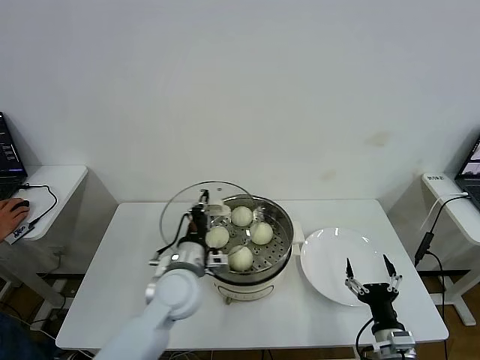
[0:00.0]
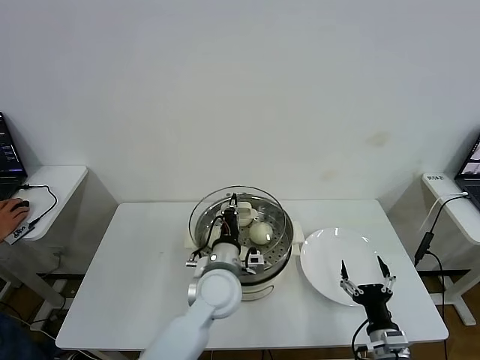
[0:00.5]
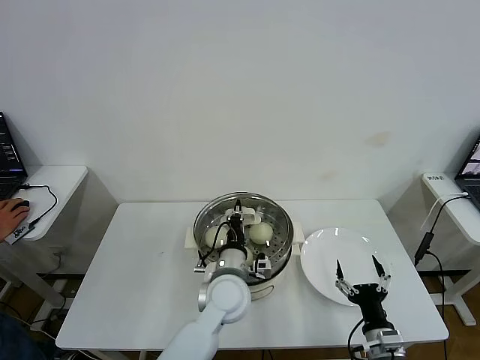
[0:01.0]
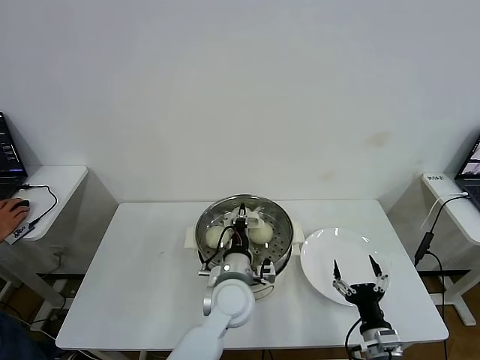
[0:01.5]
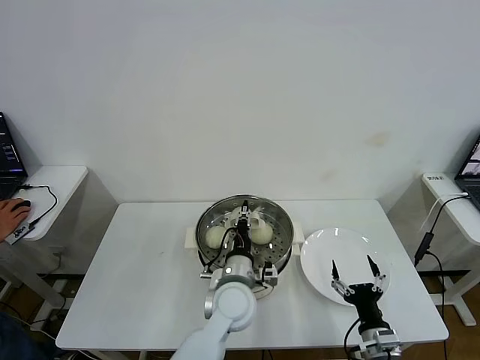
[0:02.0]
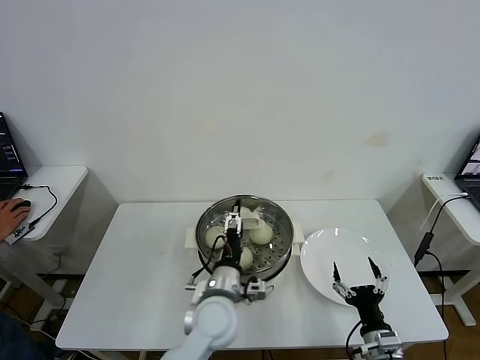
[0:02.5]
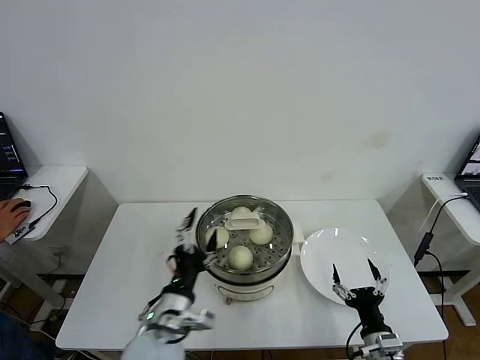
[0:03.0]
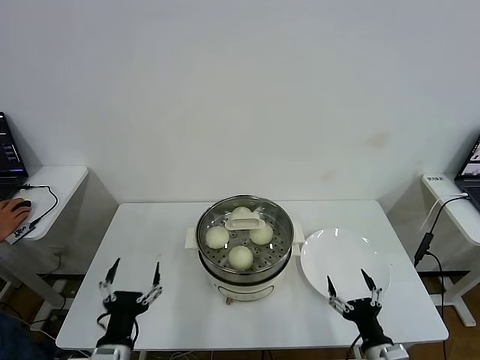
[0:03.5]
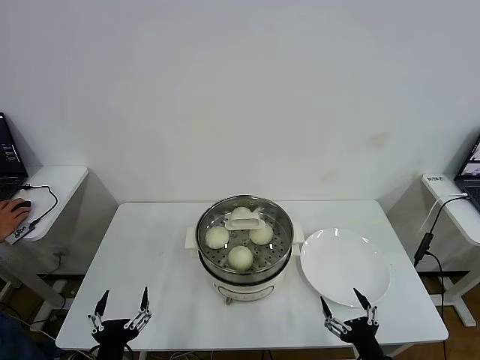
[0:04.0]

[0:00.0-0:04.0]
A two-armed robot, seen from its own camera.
Task of the whole recording: take steamed baozi put them in steamer then cover it.
0:00.0 to 0:02.0: The left gripper shifts approximately 10 cm to the right.
0:02.0 to 0:04.0: The left gripper travels to the left and backward by about 30 cm, and opens; the right gripper travels backward by some 5 cm.
